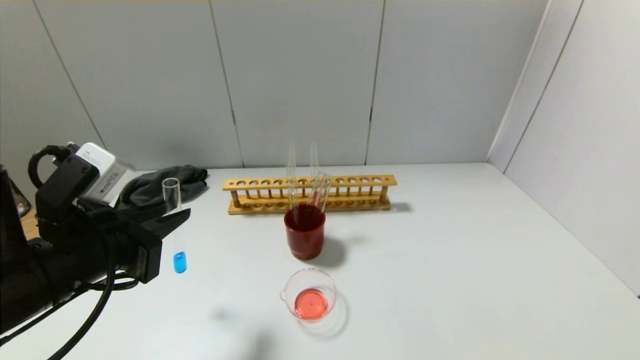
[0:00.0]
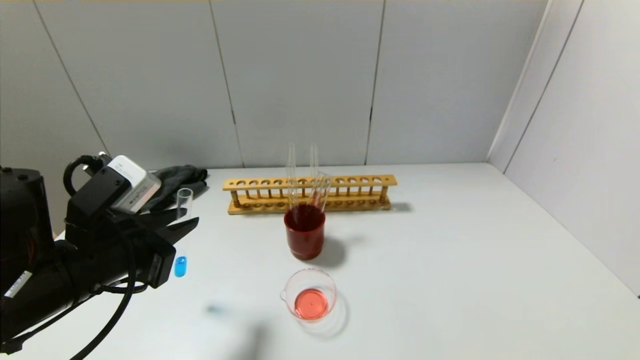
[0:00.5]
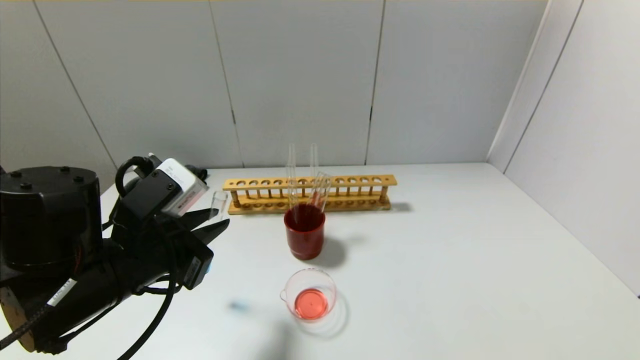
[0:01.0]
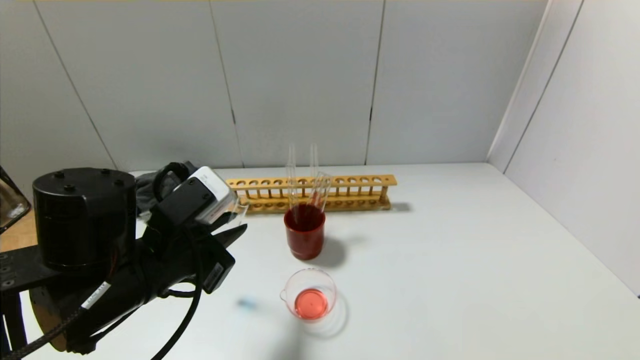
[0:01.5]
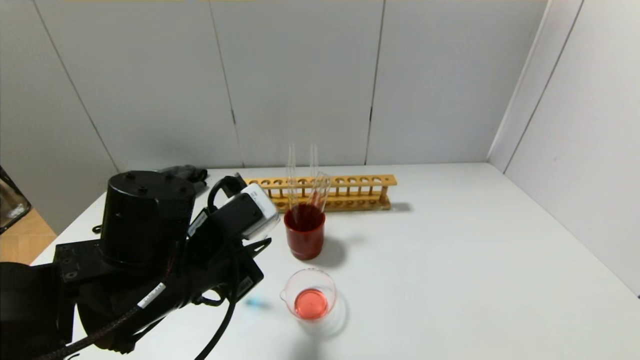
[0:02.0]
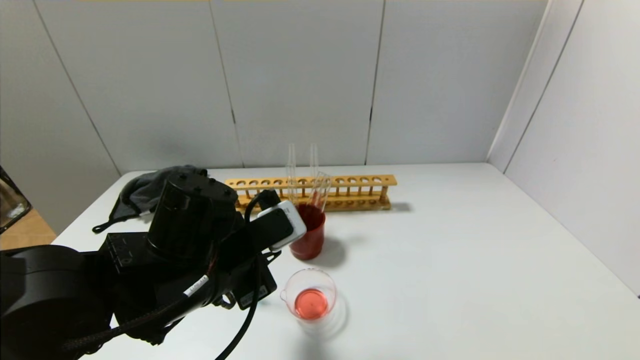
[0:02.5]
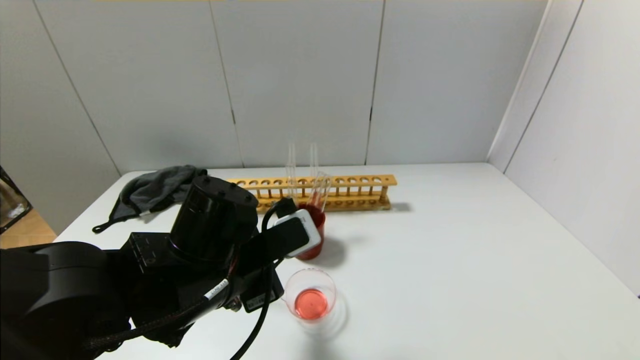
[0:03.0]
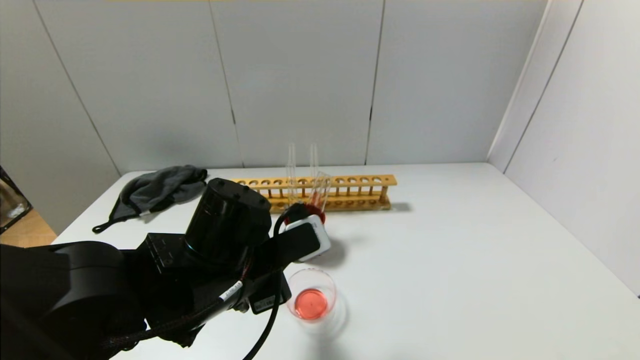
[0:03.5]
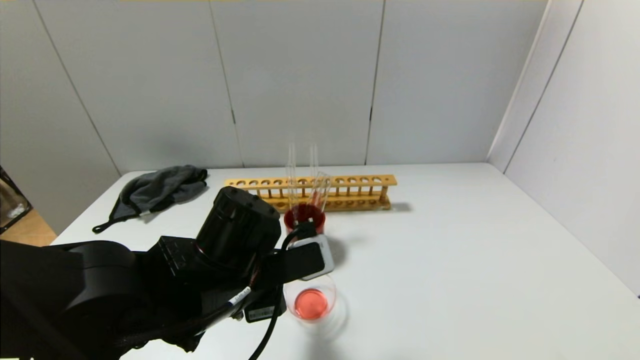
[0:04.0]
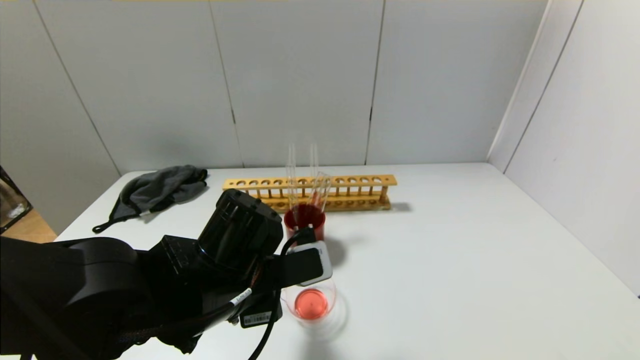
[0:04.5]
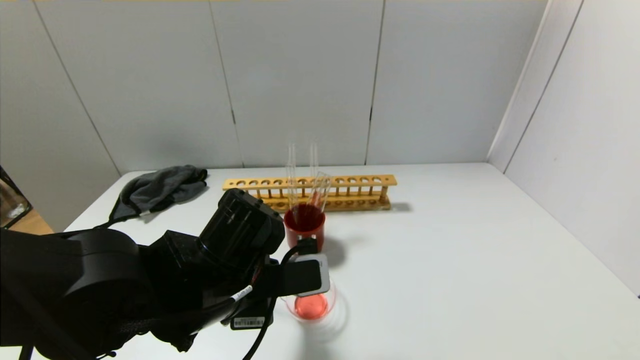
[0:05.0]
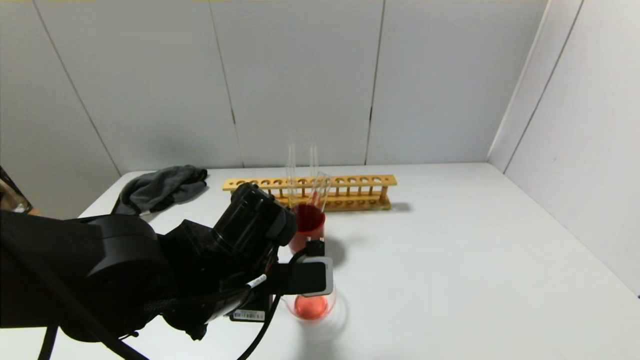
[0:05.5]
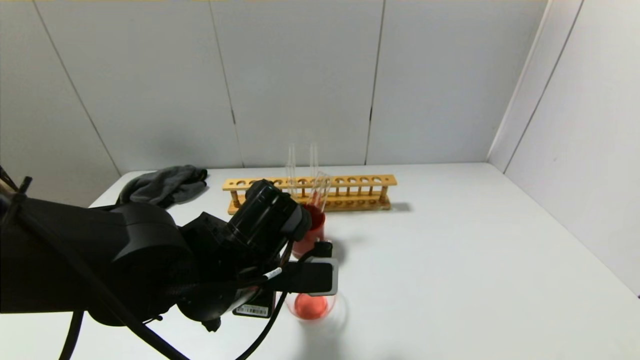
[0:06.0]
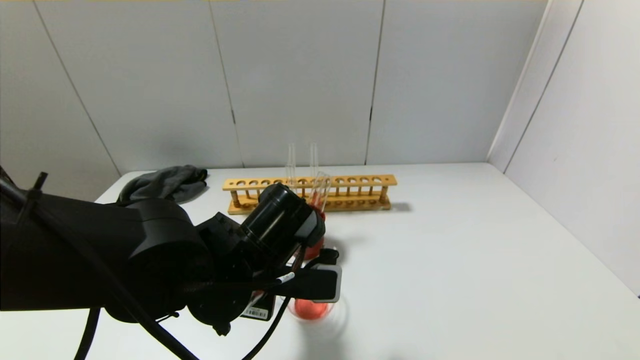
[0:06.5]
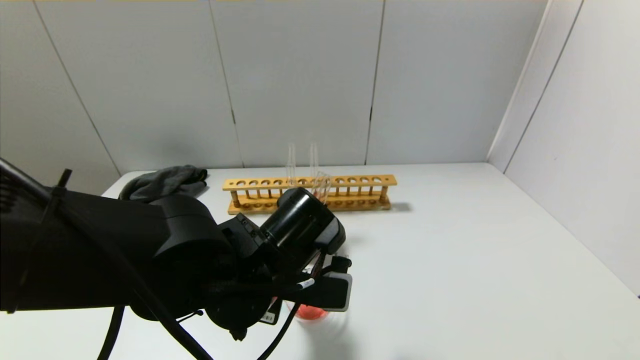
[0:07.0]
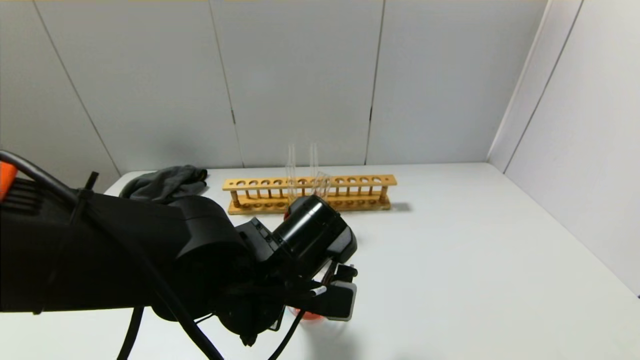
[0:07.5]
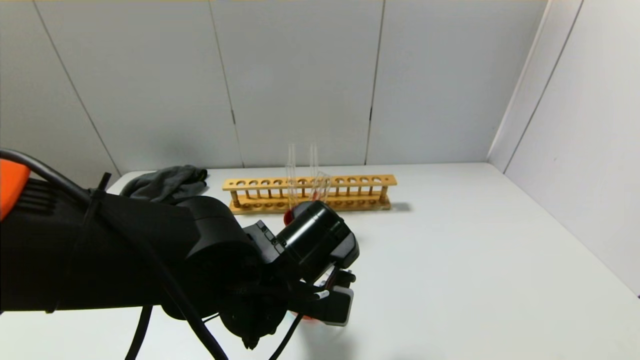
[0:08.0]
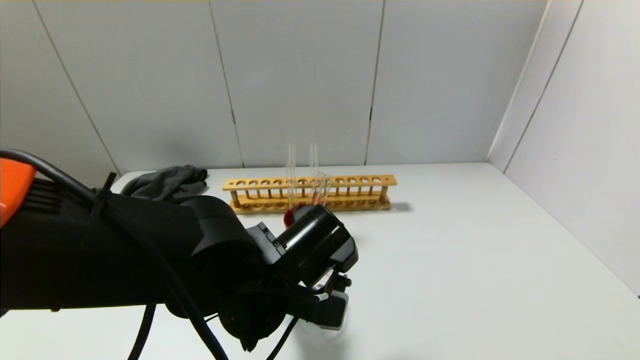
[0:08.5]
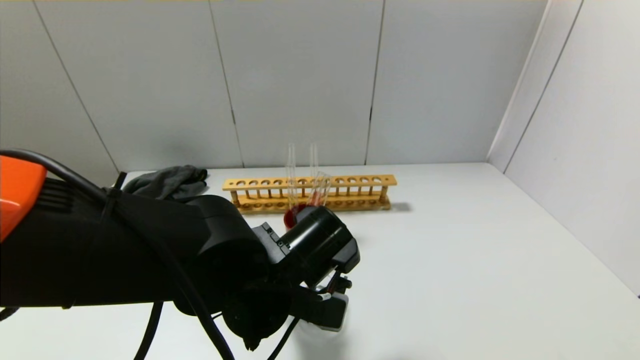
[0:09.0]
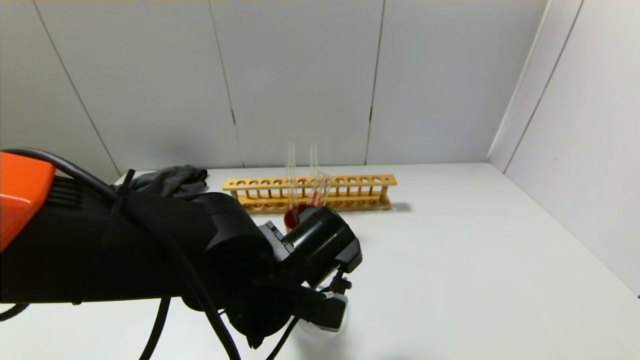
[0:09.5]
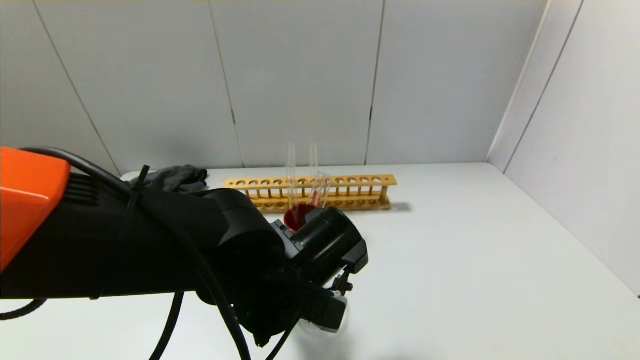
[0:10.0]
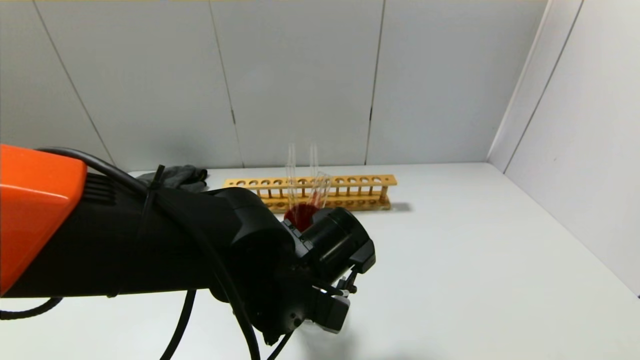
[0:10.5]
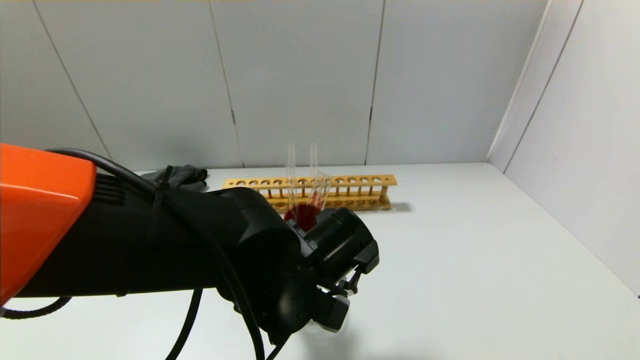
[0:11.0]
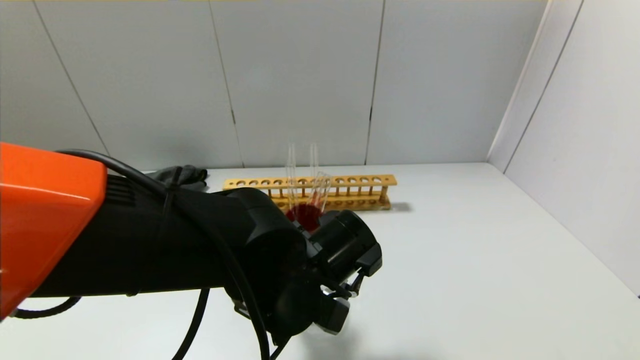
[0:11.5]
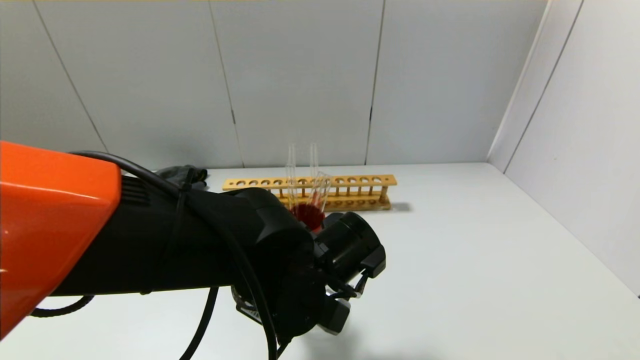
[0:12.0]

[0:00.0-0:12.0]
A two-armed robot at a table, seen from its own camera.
0:00.0 to 0:02.0: The left gripper moves to the right, some 10 cm.
0:06.0 to 0:08.0: The grippers make only small movements.
0:08.0 to 0:12.0: The grippers move only a little.

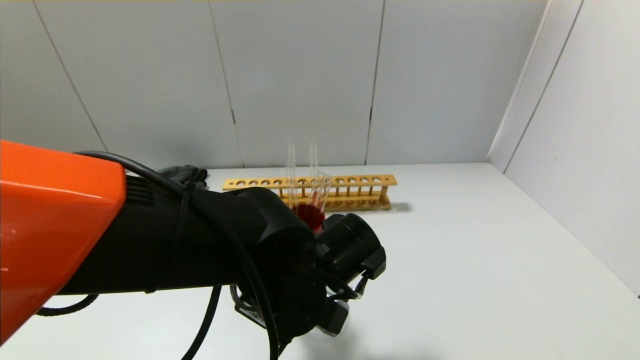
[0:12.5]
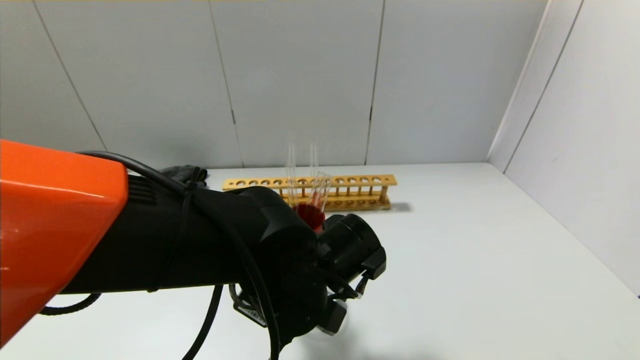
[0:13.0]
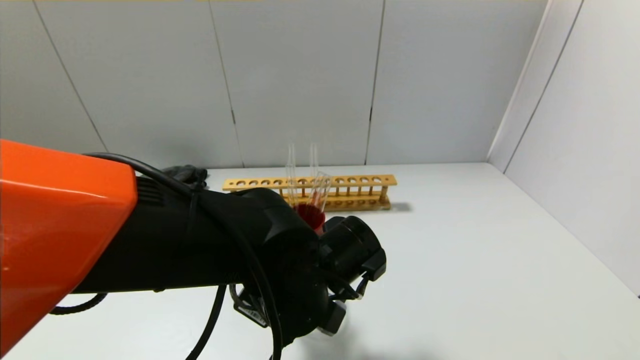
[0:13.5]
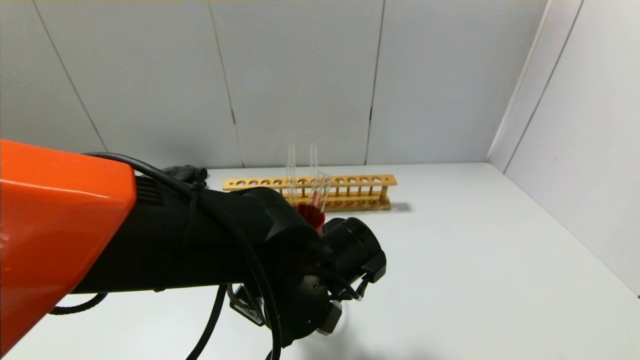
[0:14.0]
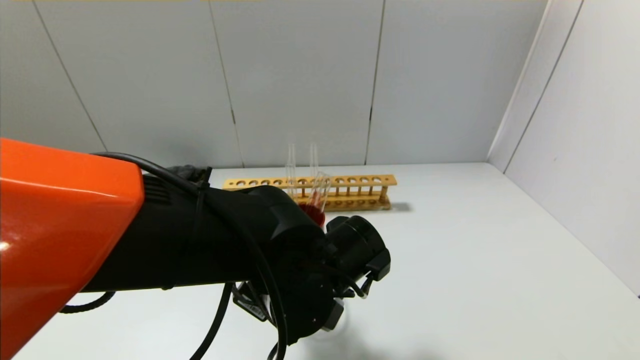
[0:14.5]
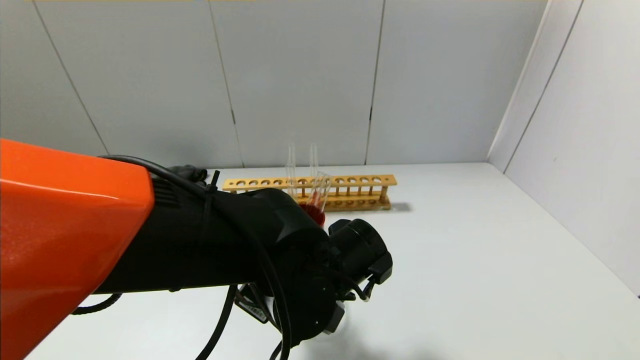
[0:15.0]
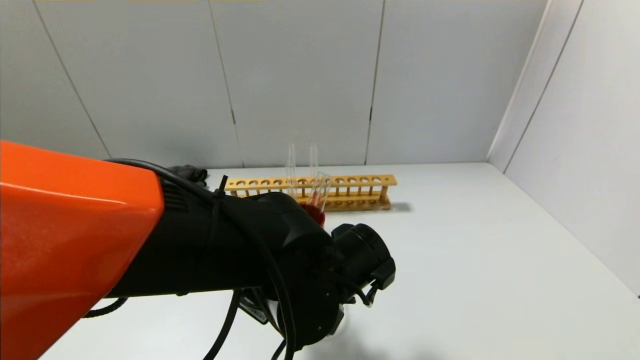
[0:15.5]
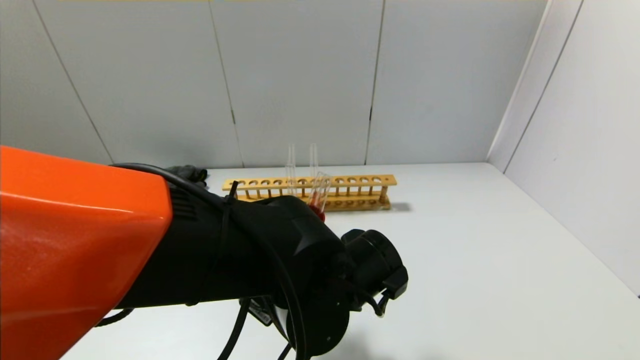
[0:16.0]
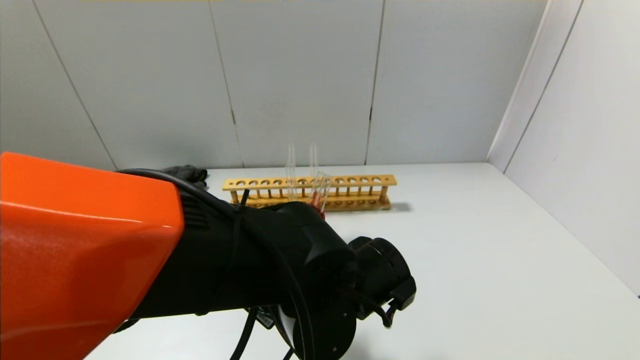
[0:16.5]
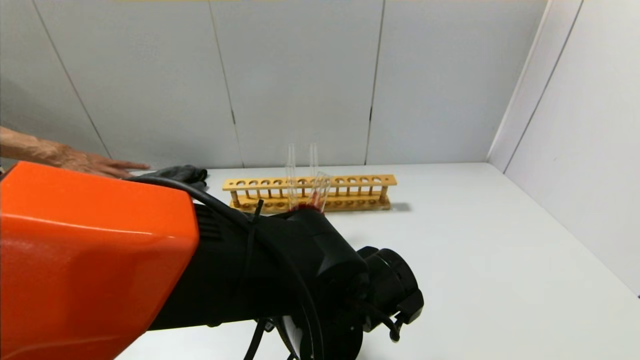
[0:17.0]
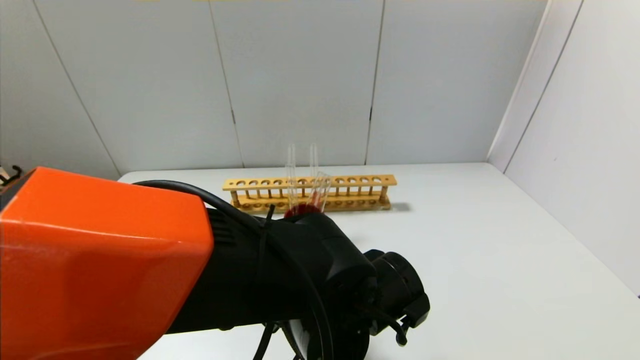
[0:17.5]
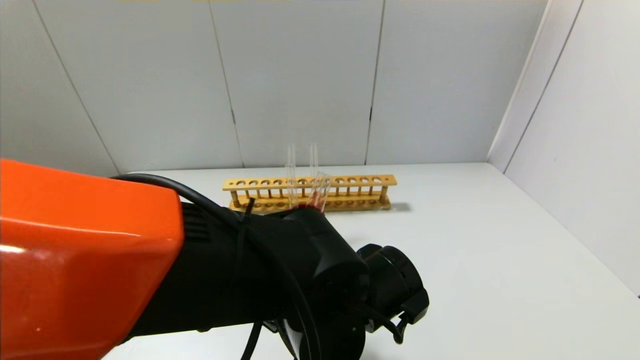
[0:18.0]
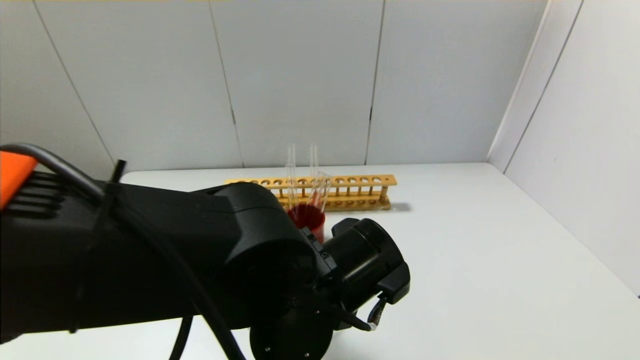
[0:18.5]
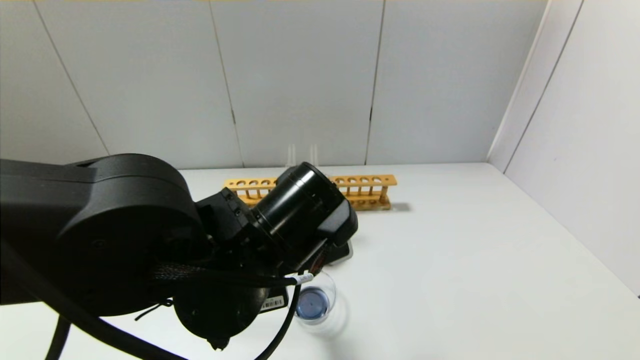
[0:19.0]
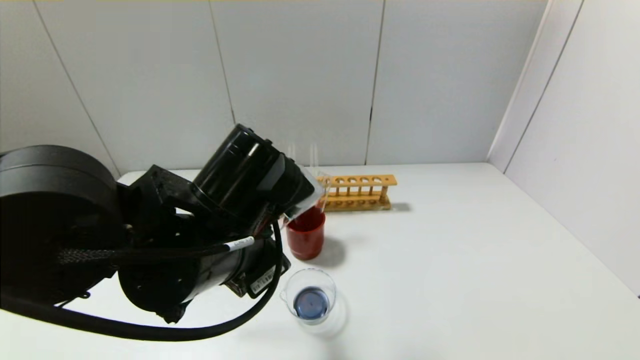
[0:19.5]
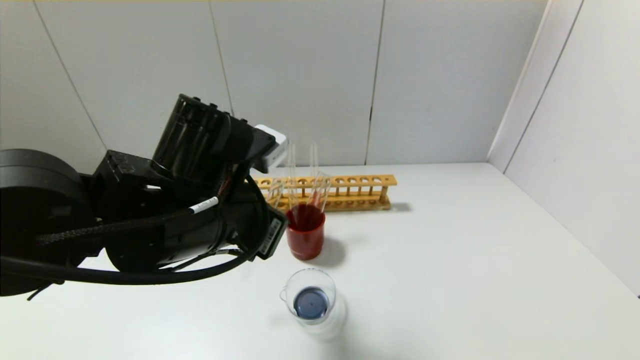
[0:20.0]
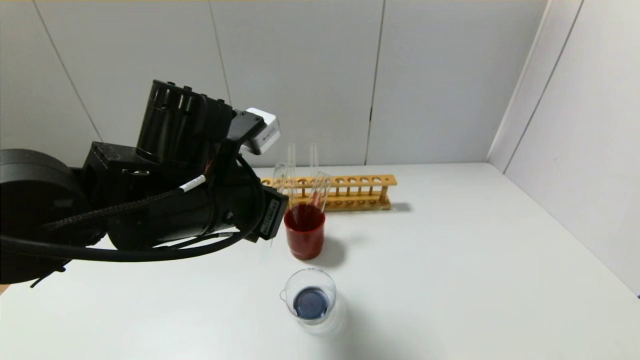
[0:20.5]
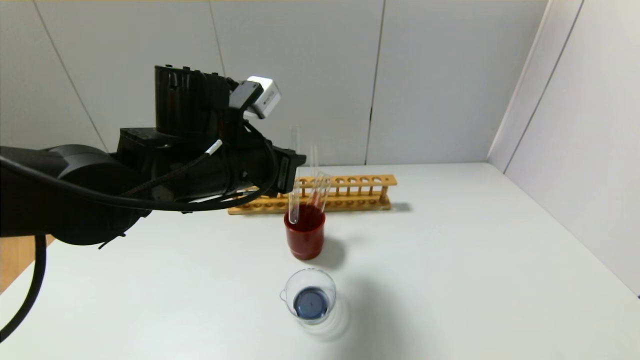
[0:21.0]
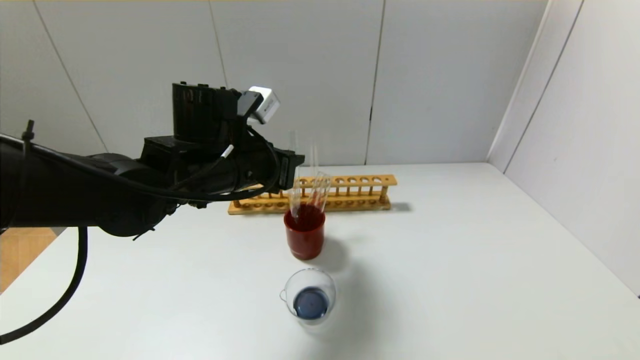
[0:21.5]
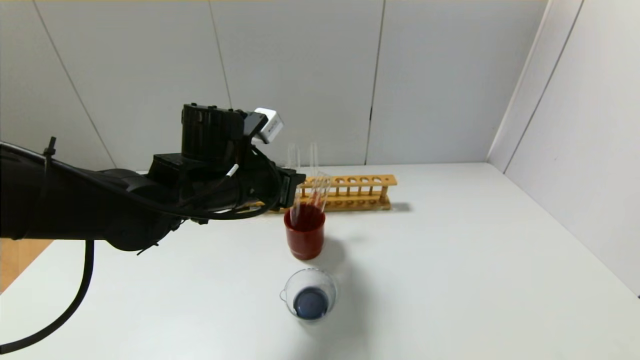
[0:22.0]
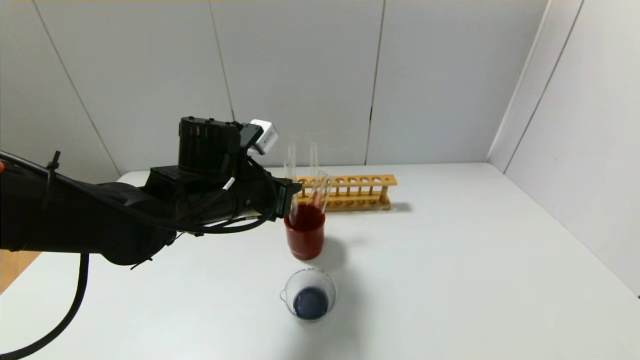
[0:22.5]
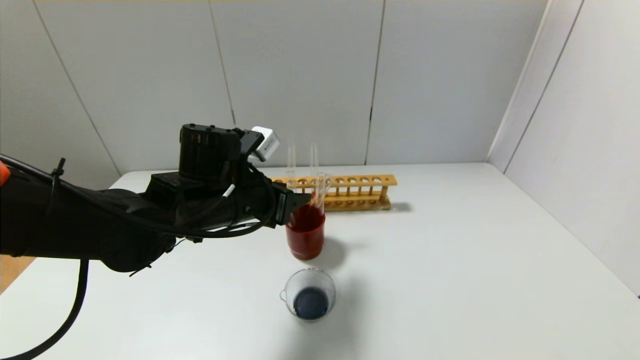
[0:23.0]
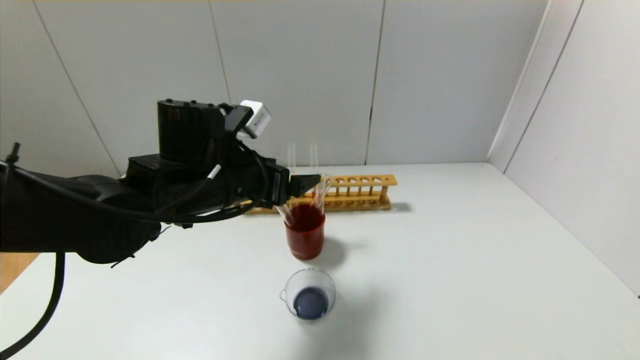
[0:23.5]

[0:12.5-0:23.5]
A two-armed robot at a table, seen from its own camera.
Step, 0:12.5 to 0:18.5: Pour the blue reagent into the graduated cylinder with the left gripper.
Step, 0:19.0 to 0:23.0: Place the test tube into the brown cup with the left gripper.
0:12.5 to 0:18.0: The grippers make only small movements.
0:18.0 to 0:20.0: The left gripper shifts some 15 cm to the left and upward.
0:20.0 to 0:21.5: The left gripper moves forward, about 10 cm.
0:21.5 to 0:23.5: The left gripper opens its fingers.
